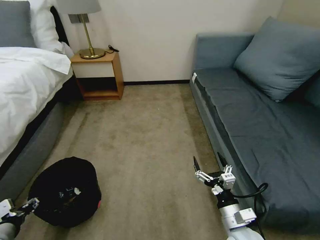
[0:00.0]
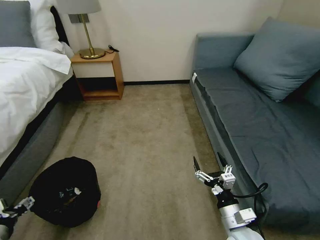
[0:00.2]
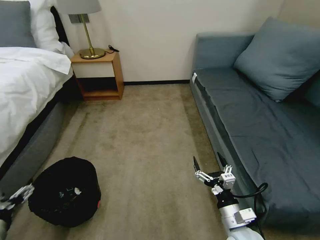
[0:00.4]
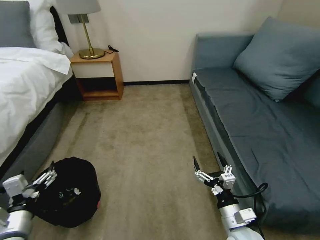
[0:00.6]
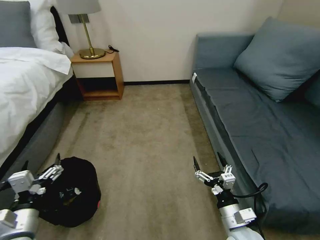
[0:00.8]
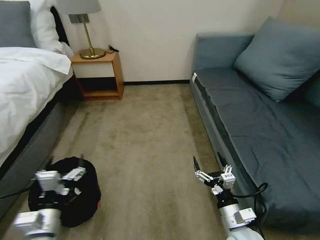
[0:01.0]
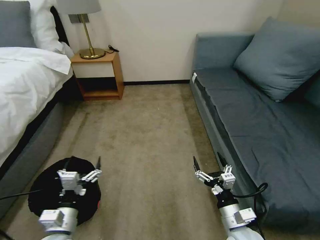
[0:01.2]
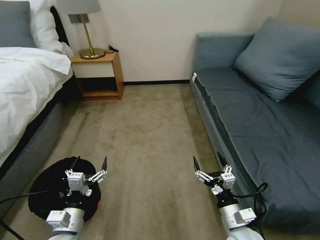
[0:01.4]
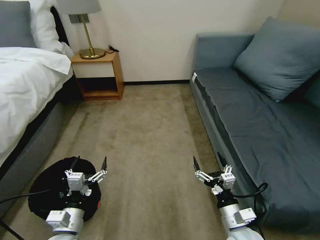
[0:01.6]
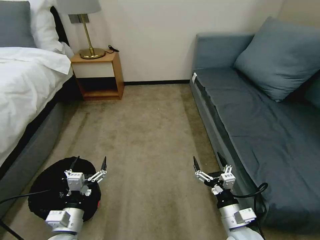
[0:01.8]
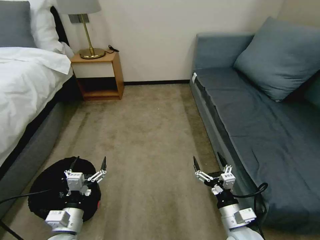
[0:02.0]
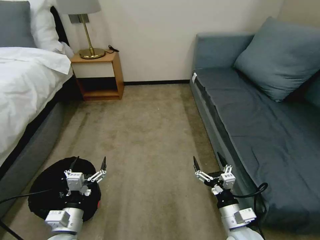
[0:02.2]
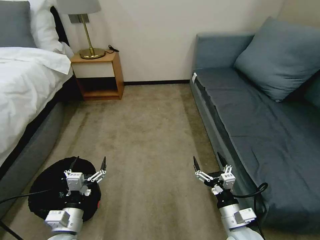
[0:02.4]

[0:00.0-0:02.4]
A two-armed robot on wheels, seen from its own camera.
Task of the whole recording: Pick up the trash bin, then pick up the garbage on the floor and place it into the trash bin.
0:00.0 to 0:01.2: The left gripper is displaced to the right by approximately 20 cm, and opens.
0:01.2 to 0:02.4: The two grippers keep their place.

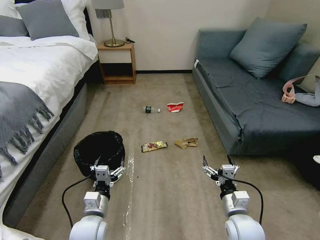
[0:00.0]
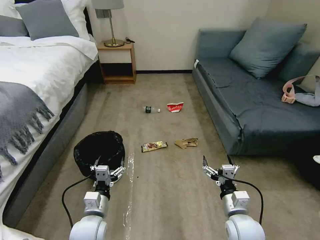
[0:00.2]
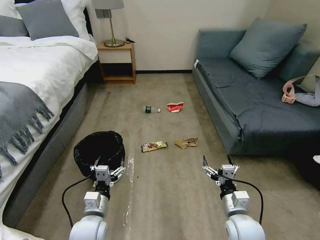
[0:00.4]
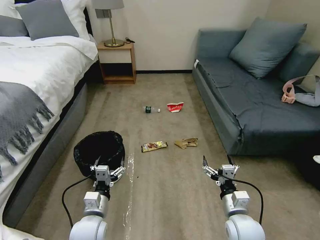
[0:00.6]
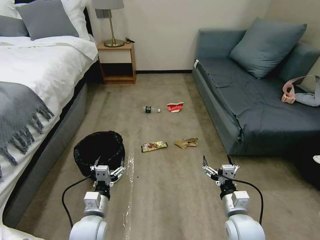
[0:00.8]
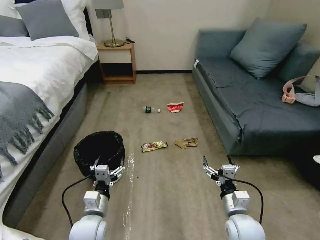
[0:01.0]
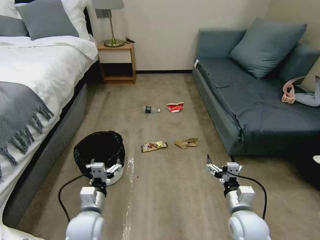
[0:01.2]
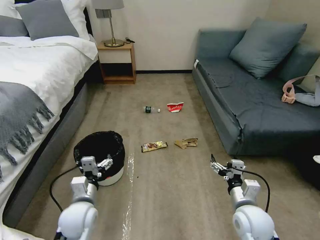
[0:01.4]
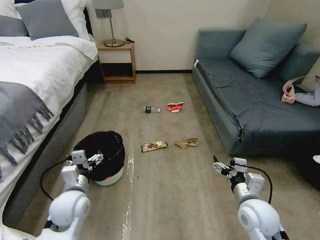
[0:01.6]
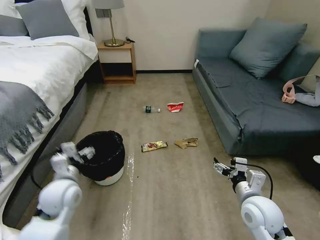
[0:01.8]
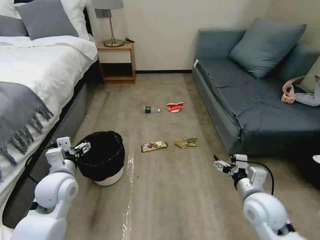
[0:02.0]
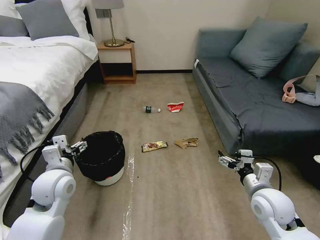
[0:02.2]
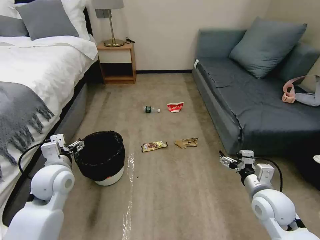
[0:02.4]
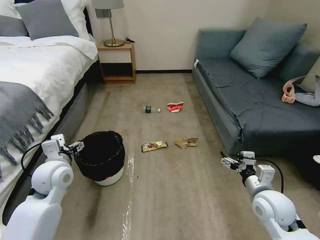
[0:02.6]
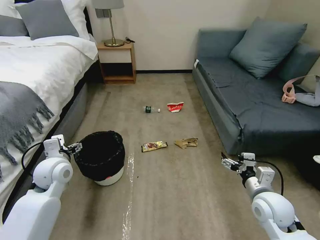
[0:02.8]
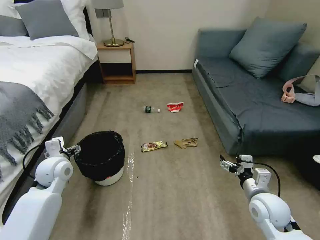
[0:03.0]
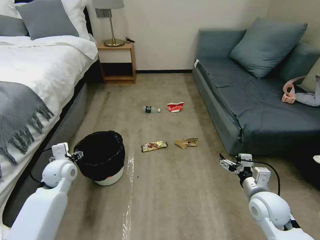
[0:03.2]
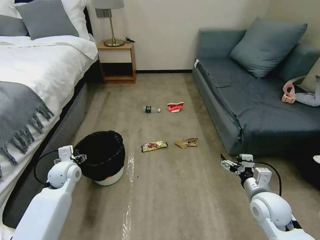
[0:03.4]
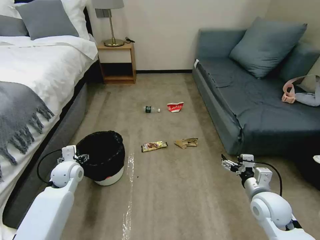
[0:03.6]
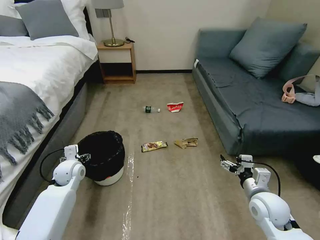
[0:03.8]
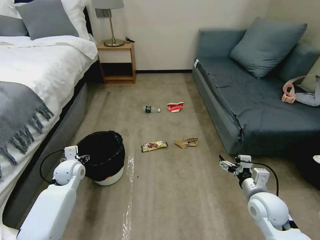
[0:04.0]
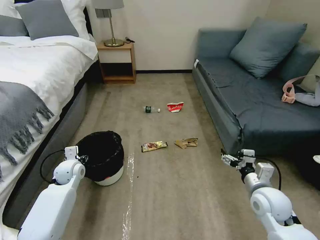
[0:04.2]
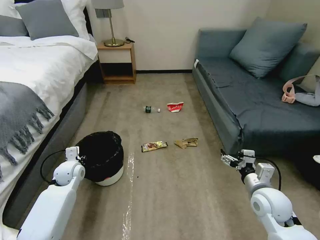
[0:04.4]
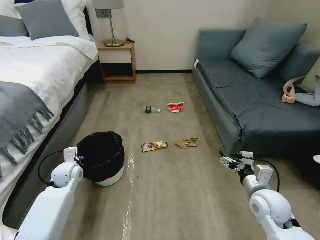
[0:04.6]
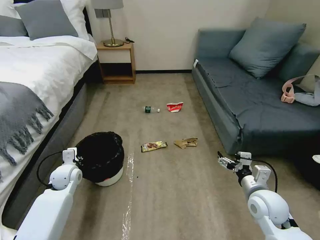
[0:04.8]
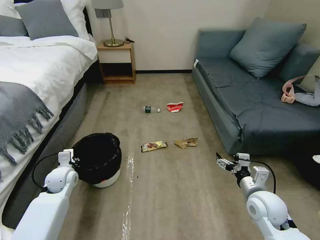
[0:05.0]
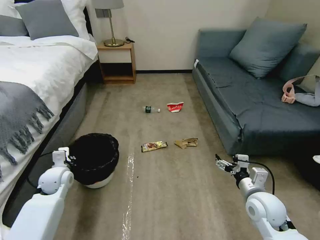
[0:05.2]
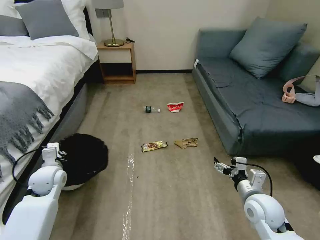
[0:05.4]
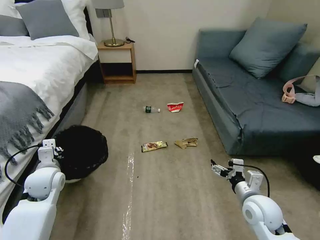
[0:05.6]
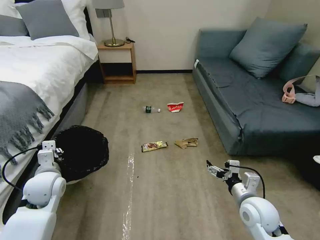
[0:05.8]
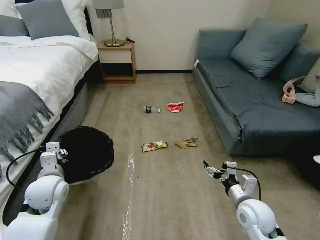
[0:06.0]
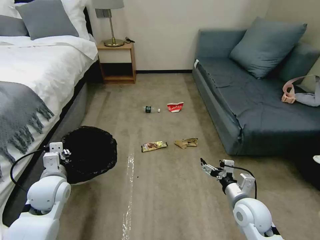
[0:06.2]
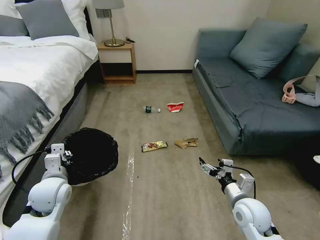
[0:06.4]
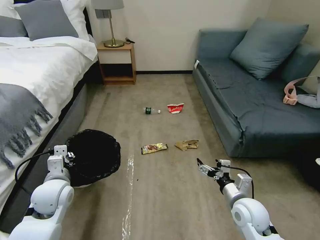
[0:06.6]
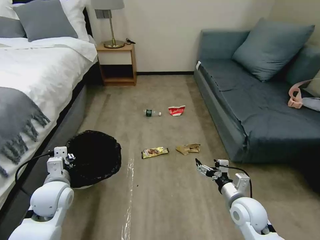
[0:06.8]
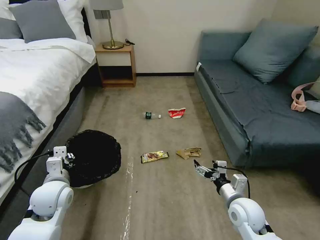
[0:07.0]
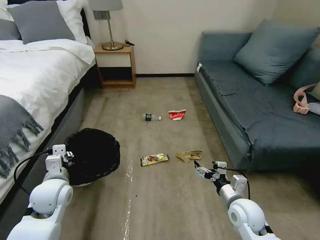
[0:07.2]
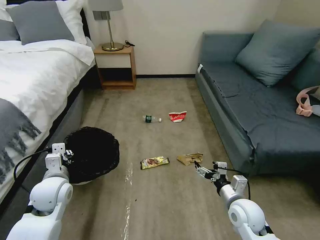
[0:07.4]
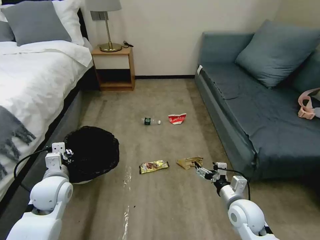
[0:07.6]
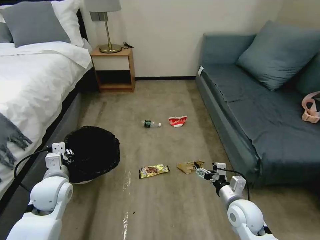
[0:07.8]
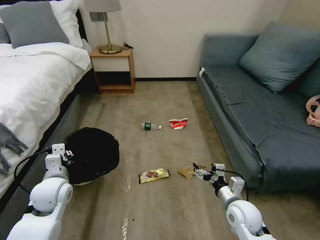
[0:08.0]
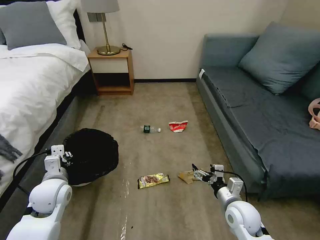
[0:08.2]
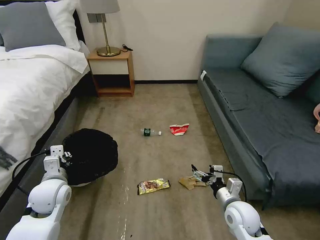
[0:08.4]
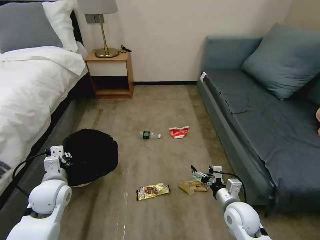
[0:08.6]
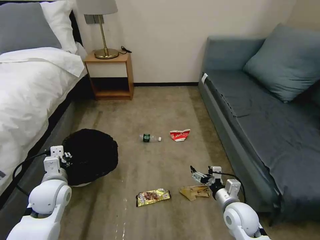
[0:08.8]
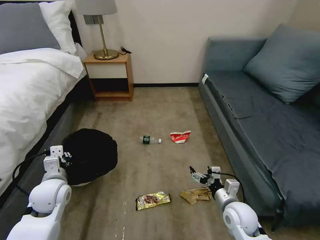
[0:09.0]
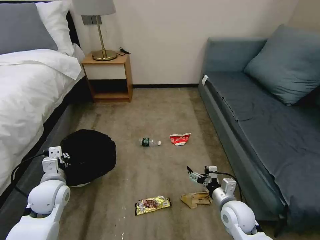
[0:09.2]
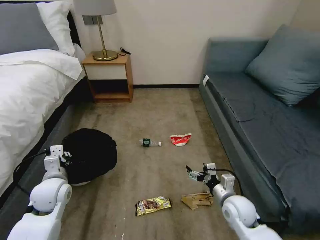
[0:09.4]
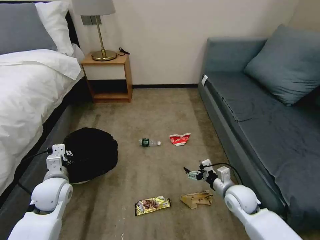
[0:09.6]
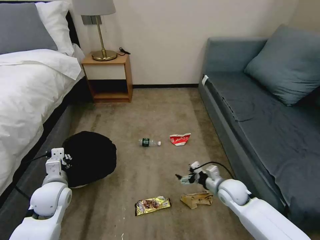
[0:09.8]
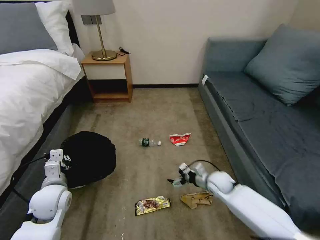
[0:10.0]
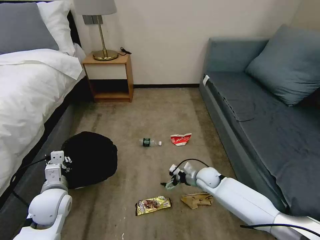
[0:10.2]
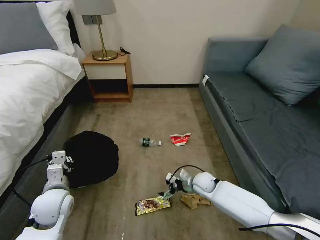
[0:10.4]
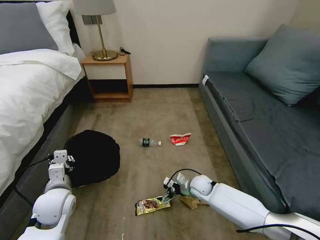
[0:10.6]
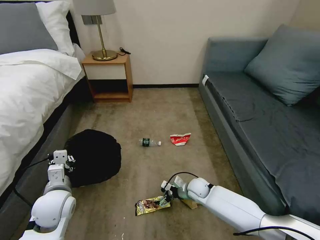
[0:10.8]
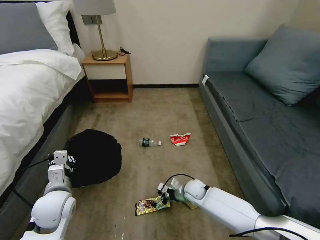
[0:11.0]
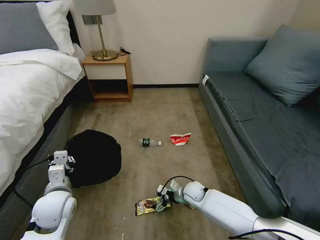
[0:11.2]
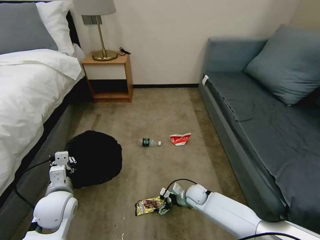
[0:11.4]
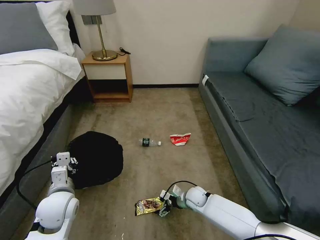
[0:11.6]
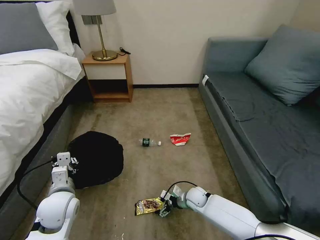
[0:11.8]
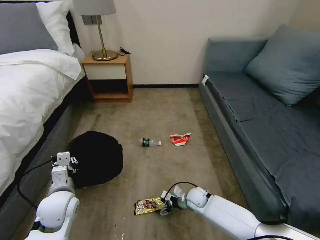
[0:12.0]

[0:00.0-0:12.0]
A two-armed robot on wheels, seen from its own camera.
Task of the whole recording: Pick up the trash bin, then pick up the garbage on the floor and place it into the trash bin.
0:01.6 to 0:03.0: The left gripper goes some 15 cm forward and to the left. The right gripper moves to the right, approximately 5 cm.
0:03.0 to 0:04.4: The left gripper moves downward, about 10 cm, and closes.
0:04.4 to 0:06.0: The left gripper heads backward and upward, covering approximately 15 cm, and closes. Meanwhile the right gripper moves roughly 5 cm.
0:09.0 to 0:10.4: The right gripper is displaced forward by approximately 15 cm.
0:10.4 to 0:12.0: The right gripper goes about 10 cm downward.

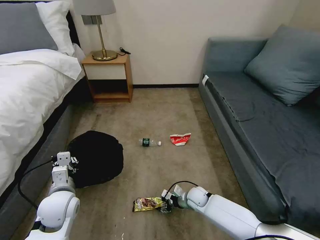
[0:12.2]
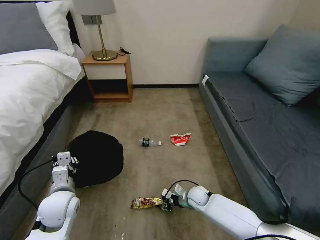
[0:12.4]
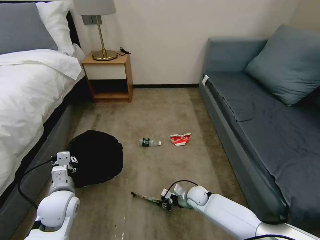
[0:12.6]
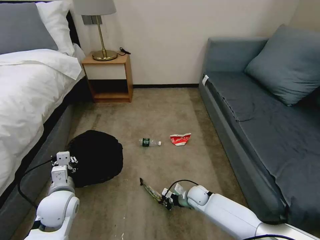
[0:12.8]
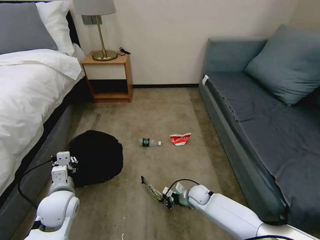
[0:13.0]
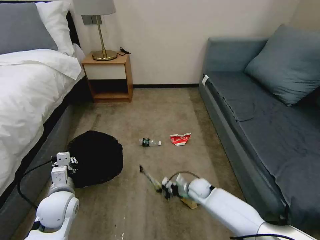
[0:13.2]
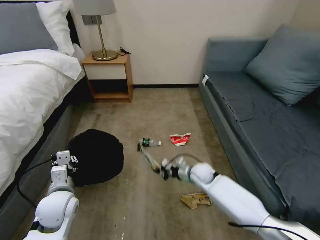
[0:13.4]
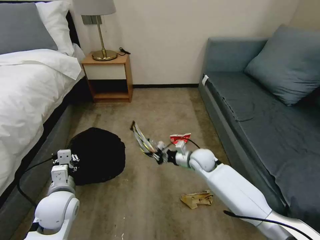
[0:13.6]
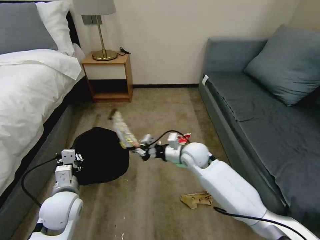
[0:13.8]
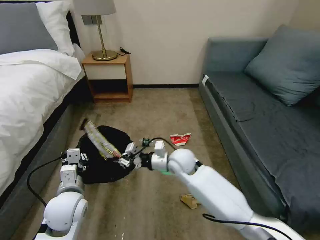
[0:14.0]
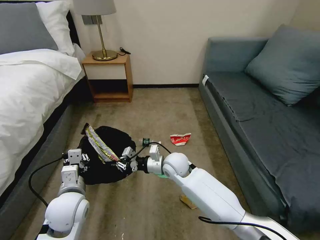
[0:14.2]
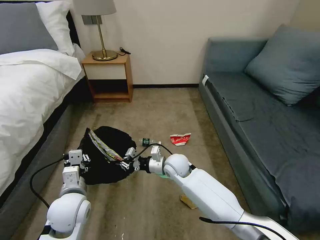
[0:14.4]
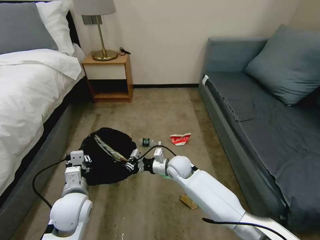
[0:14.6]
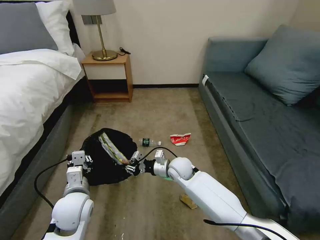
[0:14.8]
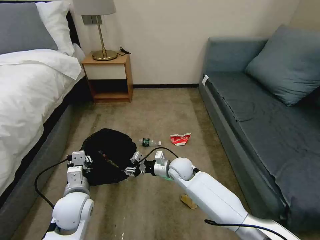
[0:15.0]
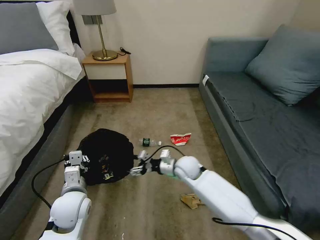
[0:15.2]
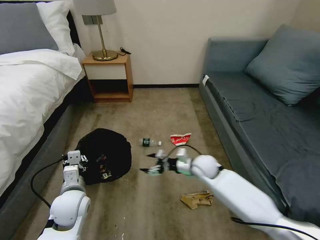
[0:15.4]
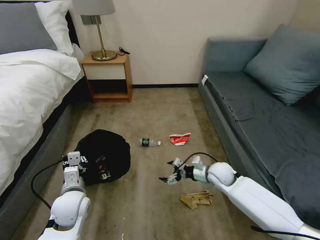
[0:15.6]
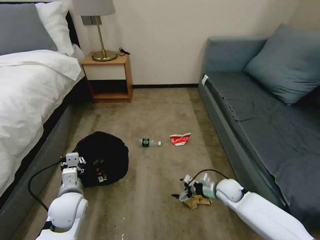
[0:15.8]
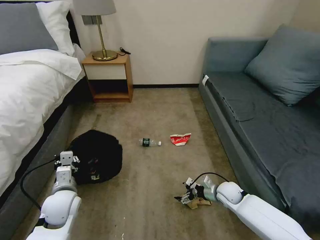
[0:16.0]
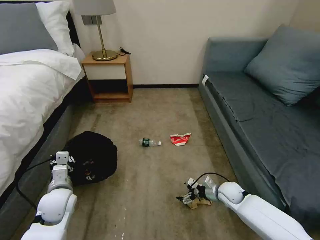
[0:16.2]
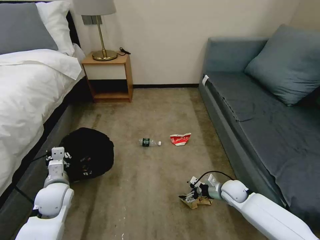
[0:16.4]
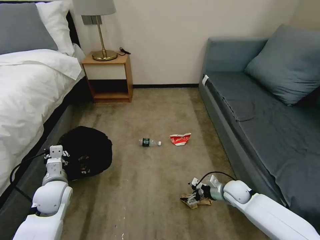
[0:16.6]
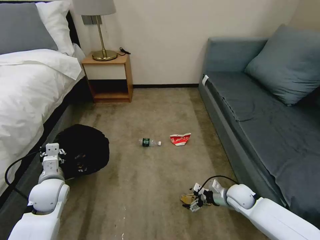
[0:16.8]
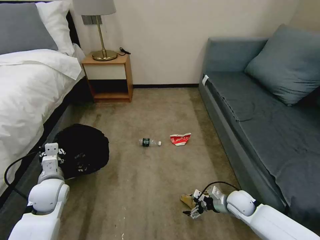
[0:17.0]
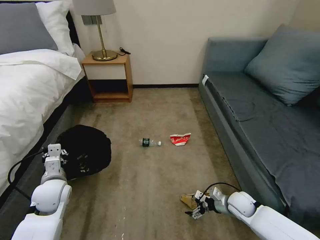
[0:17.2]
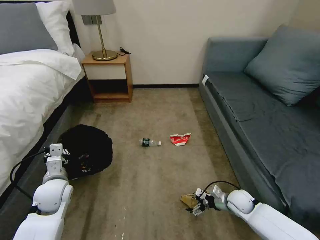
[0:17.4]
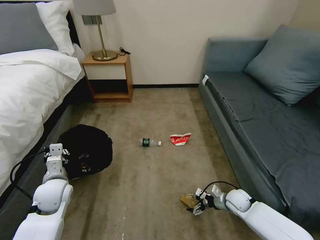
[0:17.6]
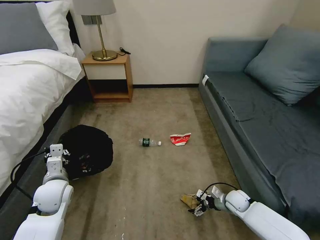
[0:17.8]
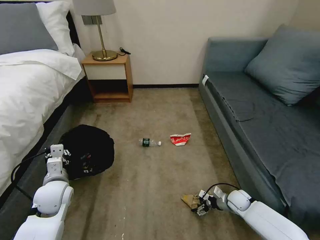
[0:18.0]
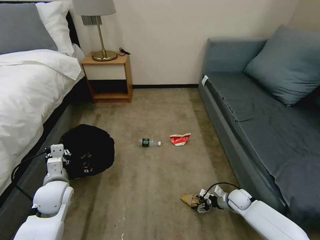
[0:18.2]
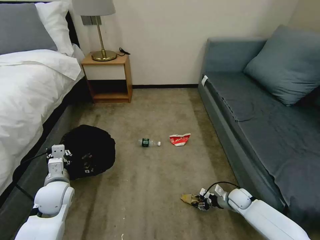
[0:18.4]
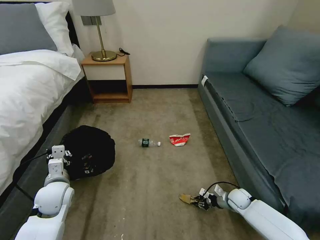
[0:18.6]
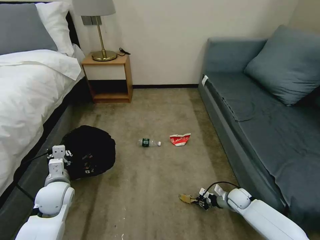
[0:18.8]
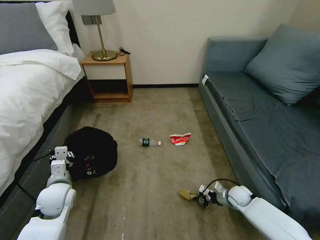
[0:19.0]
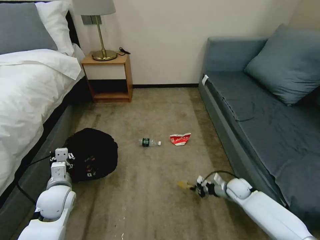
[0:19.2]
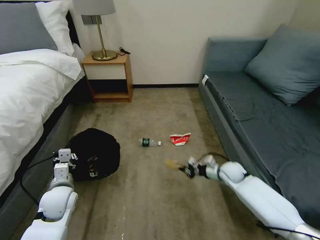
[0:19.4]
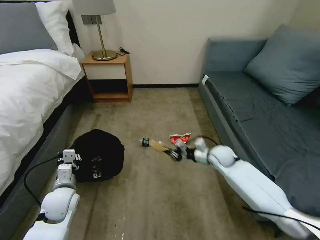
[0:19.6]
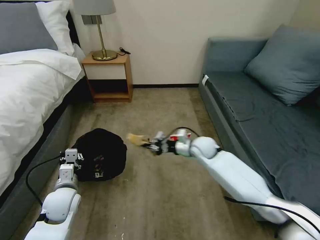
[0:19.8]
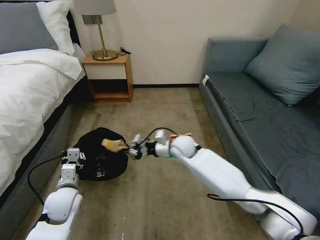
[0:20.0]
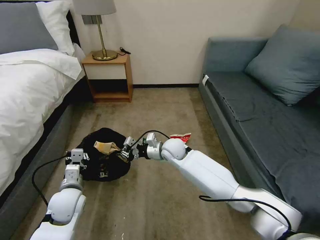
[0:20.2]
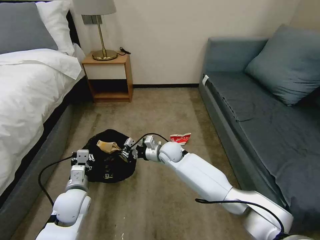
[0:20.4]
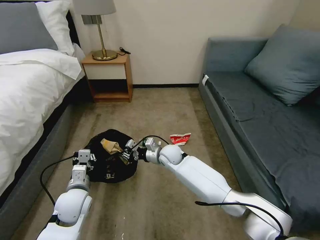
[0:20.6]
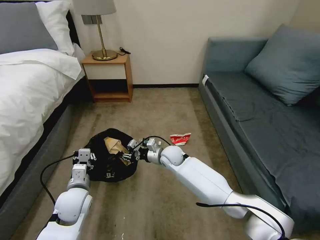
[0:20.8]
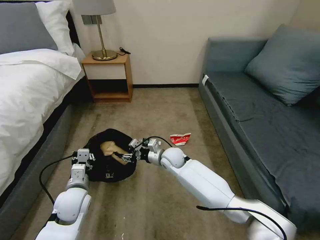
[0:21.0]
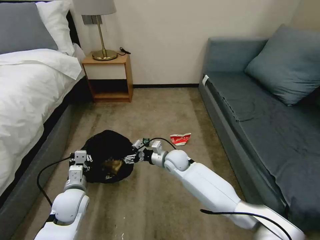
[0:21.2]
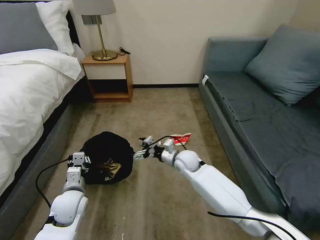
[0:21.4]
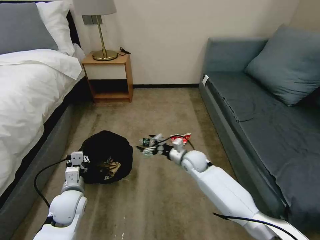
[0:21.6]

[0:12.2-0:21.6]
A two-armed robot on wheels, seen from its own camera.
Task of the whole recording: Pick up the trash bin, then pick up the garbage on the floor and place it into the trash bin.
0:12.2 to 0:13.8: The right gripper goes about 25 cm upward, and closes its fingers.
0:13.8 to 0:15.4: The right gripper travels downward and to the right by about 10 cm, and opens its fingers.
0:15.4 to 0:17.0: The right gripper goes roughly 20 cm to the right, backward and downward. The left gripper goes roughly 10 cm to the left.
0:17.0 to 0:18.4: The right gripper moves downward, about 5 cm, and closes up.
0:18.4 to 0:20.0: The right gripper shifts roughly 35 cm to the left, upward and forward, and closes up.
0:20.0 to 0:21.6: The right gripper moves downward and to the right, approximately 10 cm, and opens.
